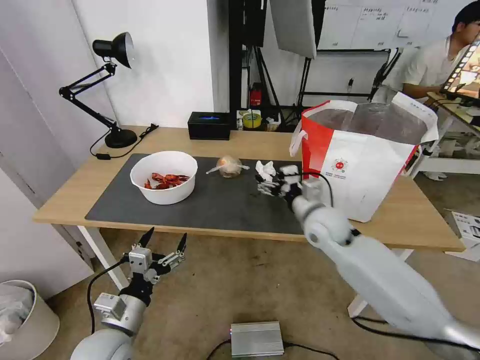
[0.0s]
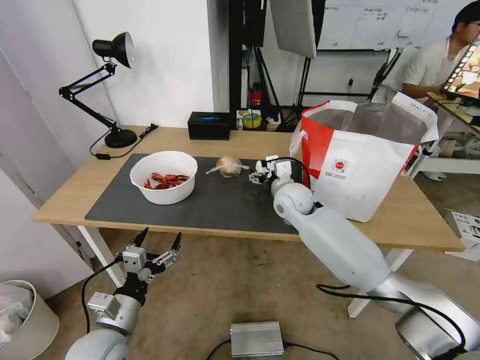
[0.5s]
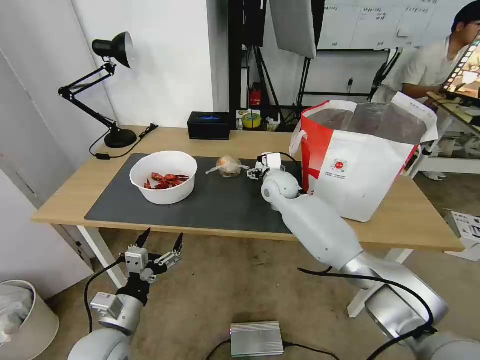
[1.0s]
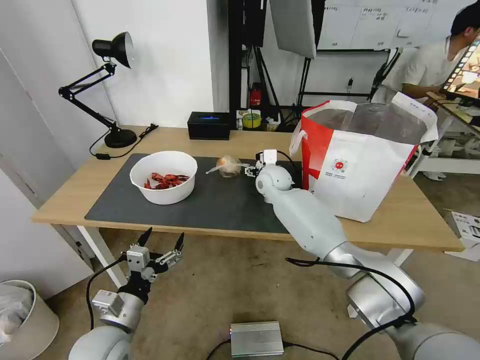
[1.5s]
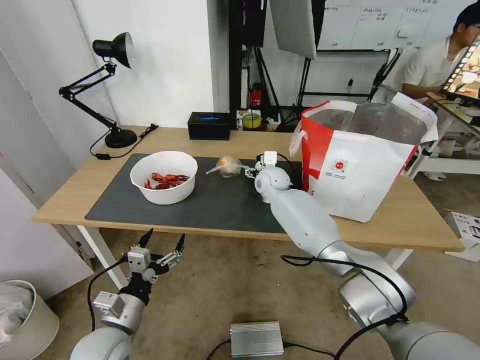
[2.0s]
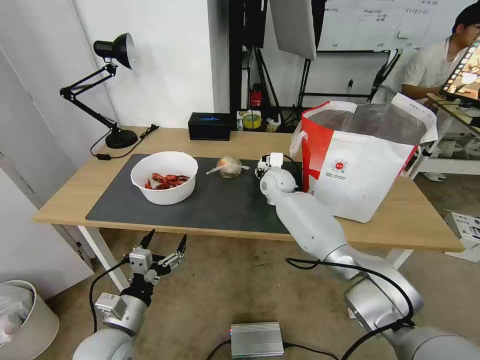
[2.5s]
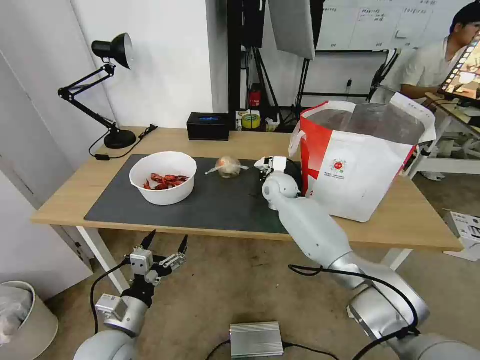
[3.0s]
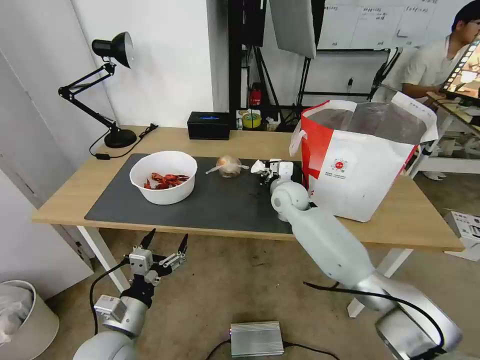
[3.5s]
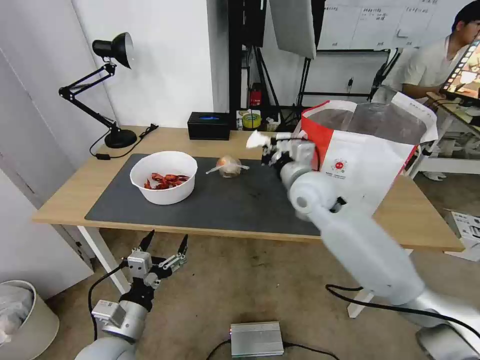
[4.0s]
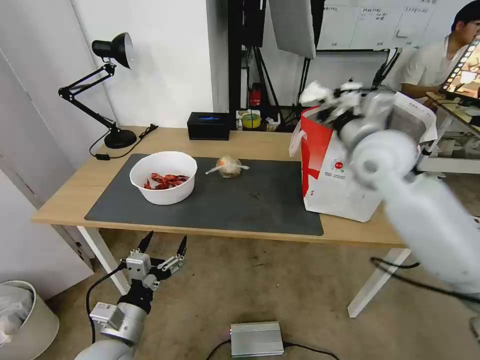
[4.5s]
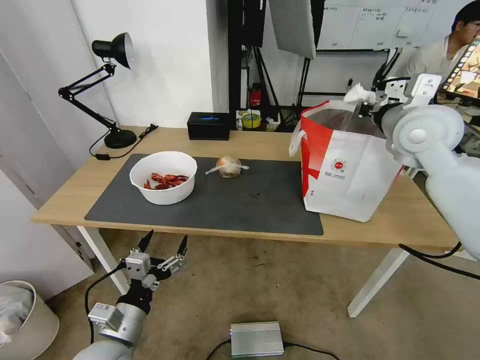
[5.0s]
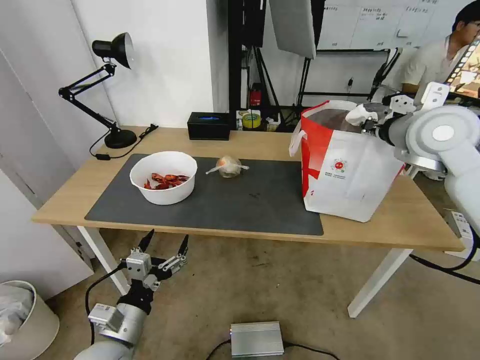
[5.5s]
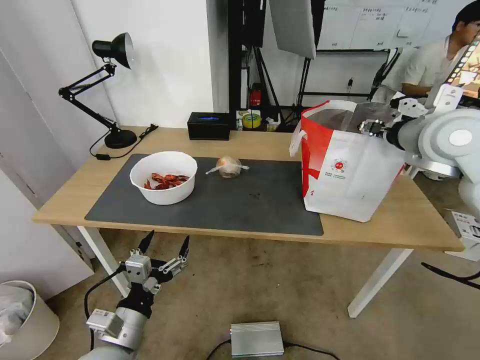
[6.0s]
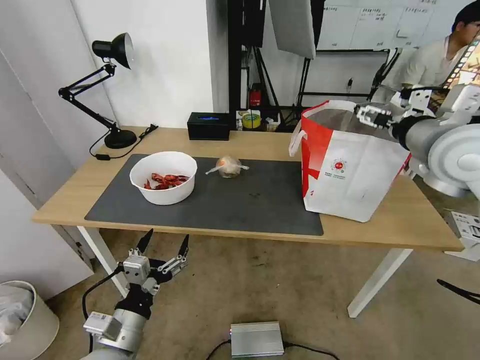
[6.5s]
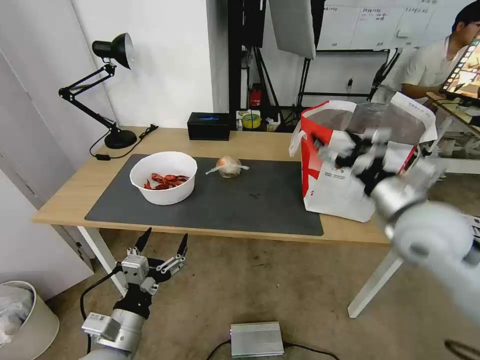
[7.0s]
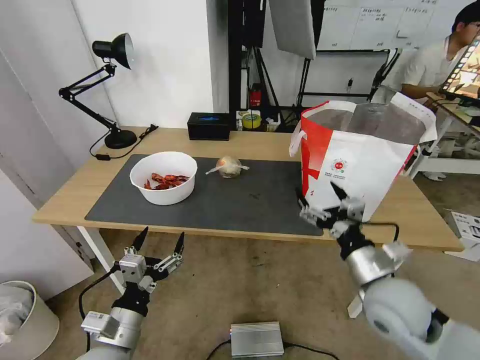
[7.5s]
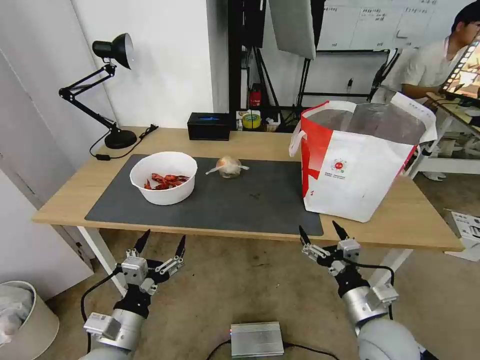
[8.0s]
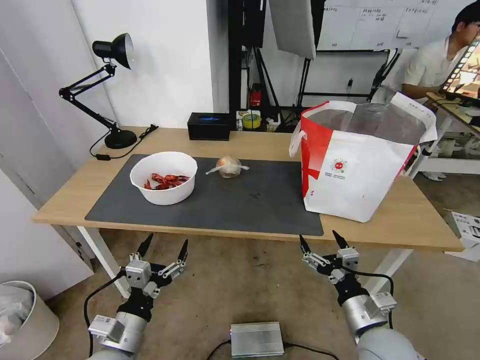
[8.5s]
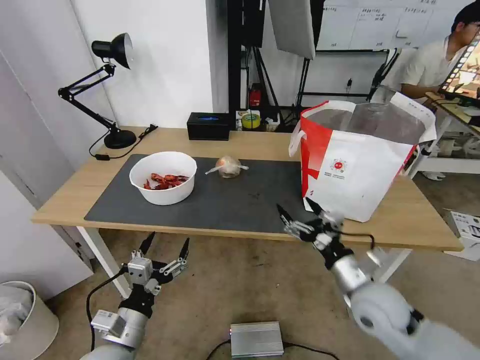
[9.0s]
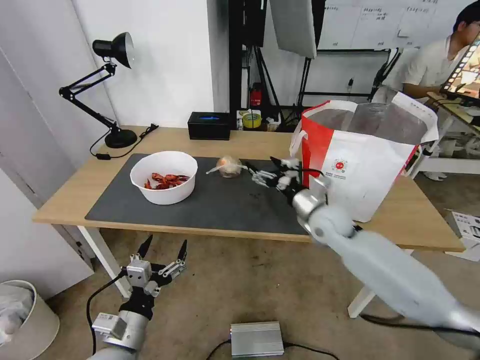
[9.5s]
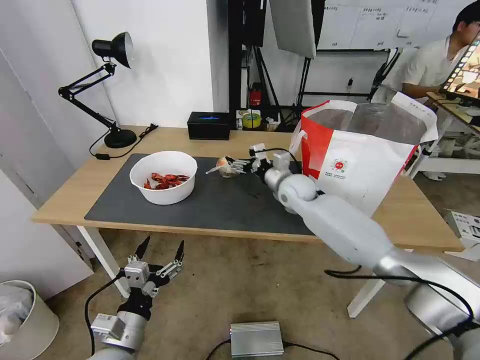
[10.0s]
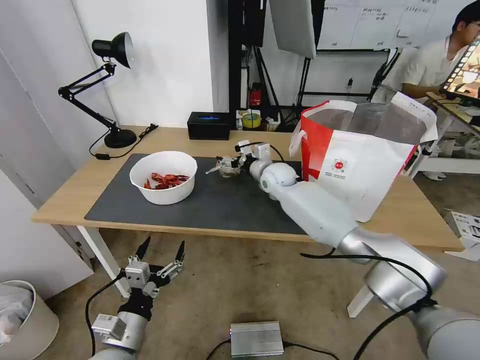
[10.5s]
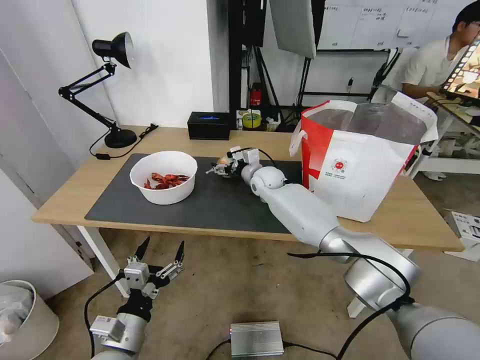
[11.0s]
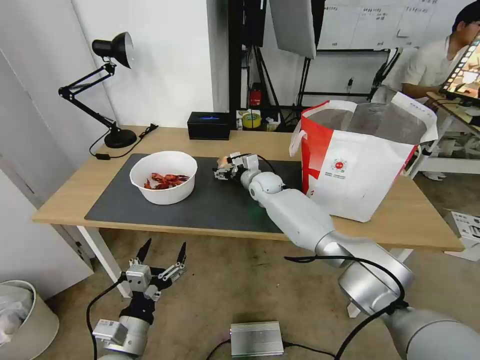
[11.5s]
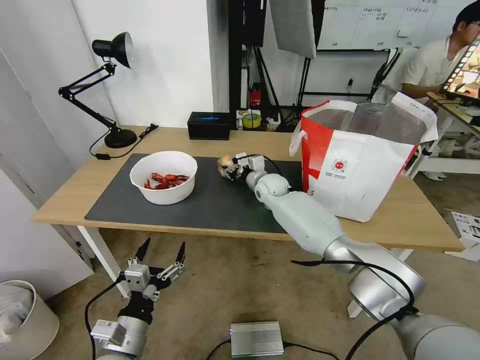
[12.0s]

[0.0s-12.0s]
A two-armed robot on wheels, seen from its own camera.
Task of the whole recording: Pick up the trash from the table and place it into the takeout bag.
0.0s to 2.0s: The right gripper is displaced forward and to the left by about 20 cm.
2.0s to 4.0s: The right gripper heads backward and upward, covering approximately 15 cm, and closes.
4.0s to 6.0s: The right gripper goes roughly 25 cm to the right and upward, and opens its fingers.
6.0s to 8.0s: The right gripper moves downward and backward, some 40 cm, and opens up.
8.0s to 10.0s: The right gripper travels forward by about 35 cm.
10.0s to 12.0s: The right gripper heads forward and to the left, covering roughly 10 cm, and closes its fingers.

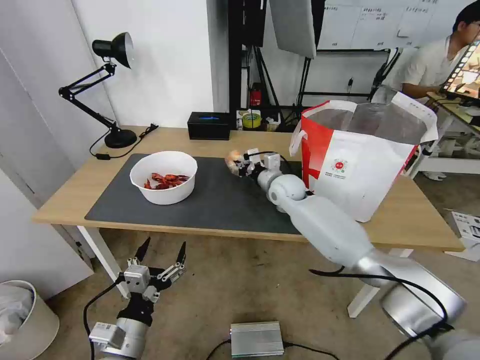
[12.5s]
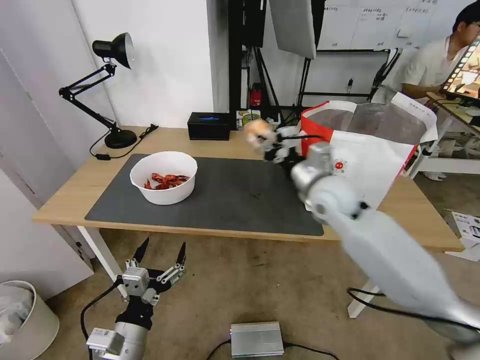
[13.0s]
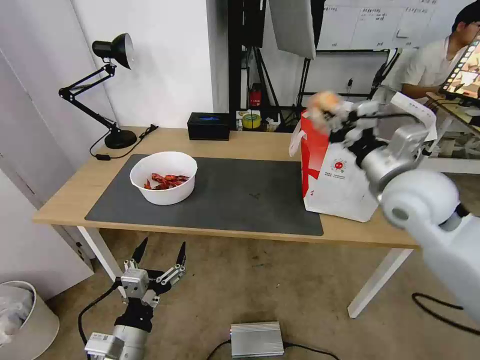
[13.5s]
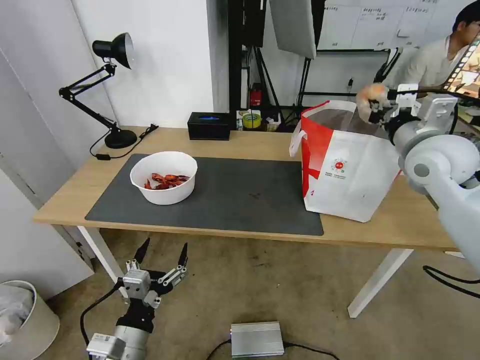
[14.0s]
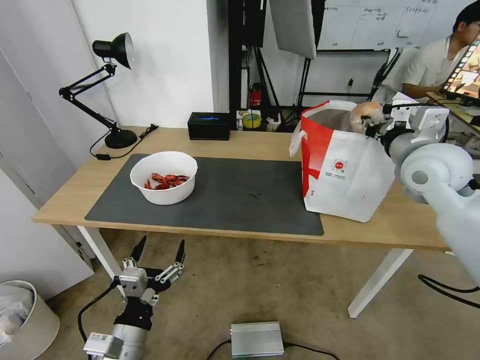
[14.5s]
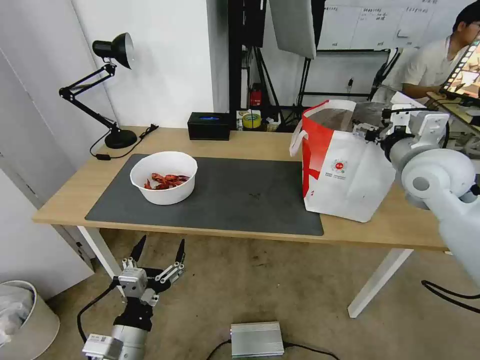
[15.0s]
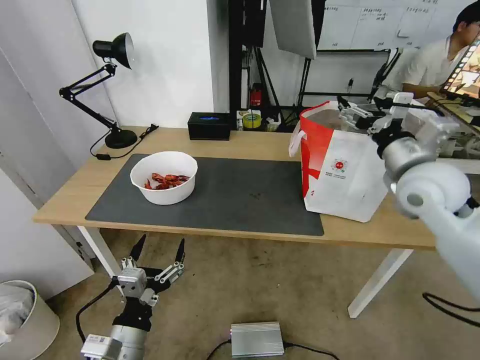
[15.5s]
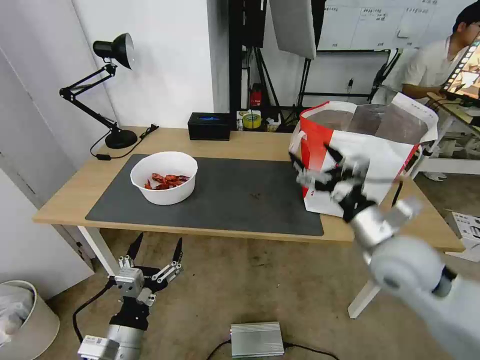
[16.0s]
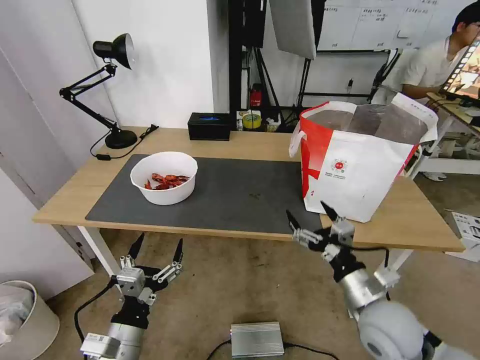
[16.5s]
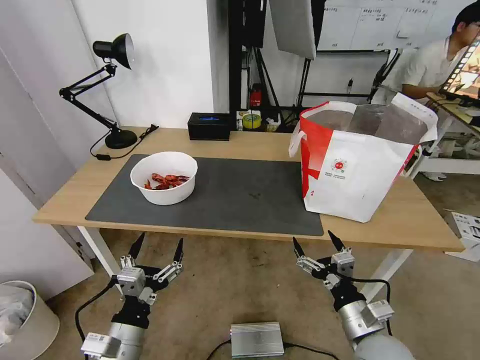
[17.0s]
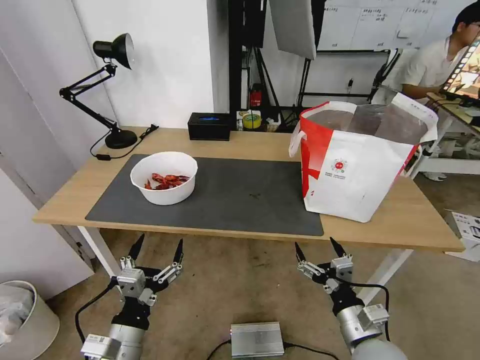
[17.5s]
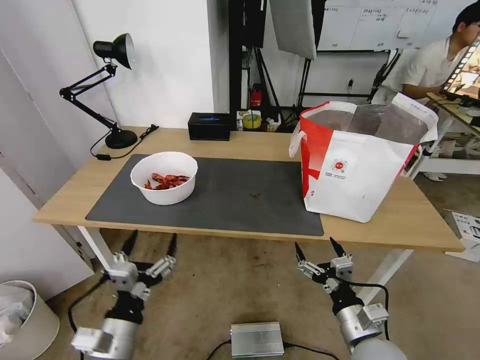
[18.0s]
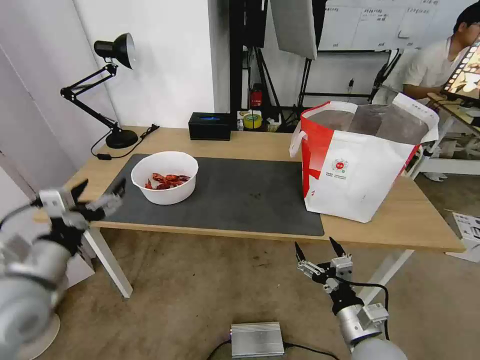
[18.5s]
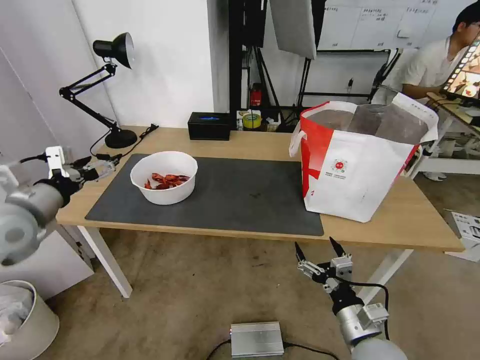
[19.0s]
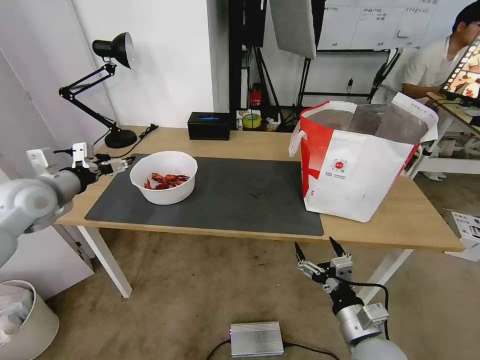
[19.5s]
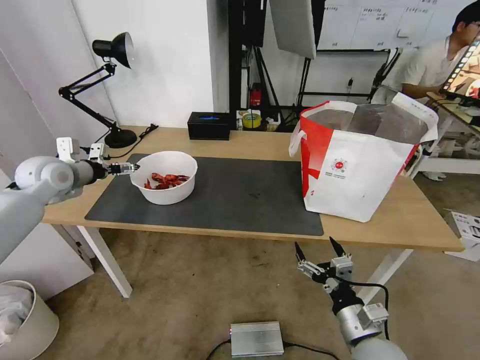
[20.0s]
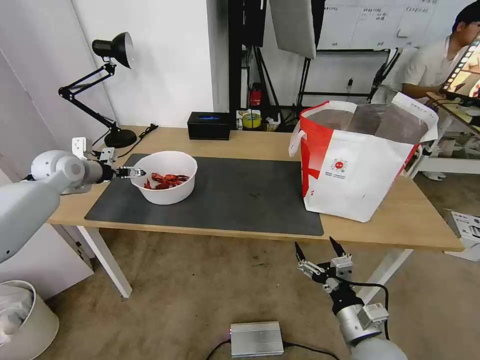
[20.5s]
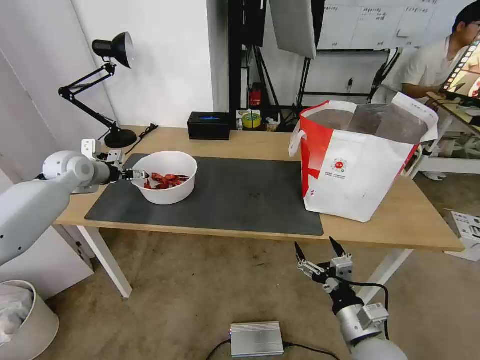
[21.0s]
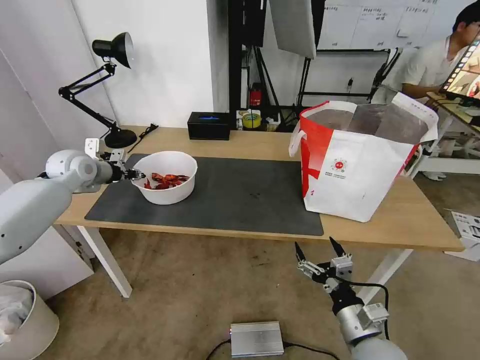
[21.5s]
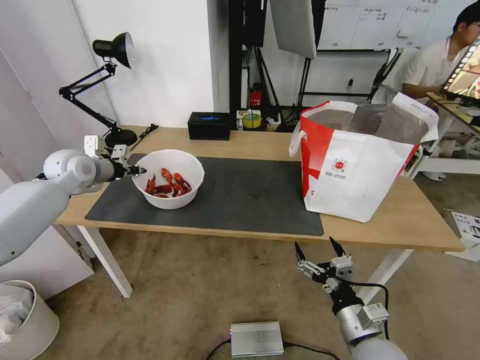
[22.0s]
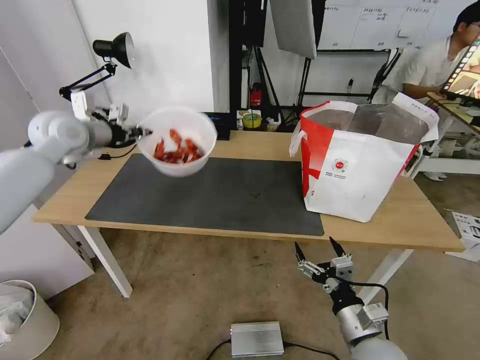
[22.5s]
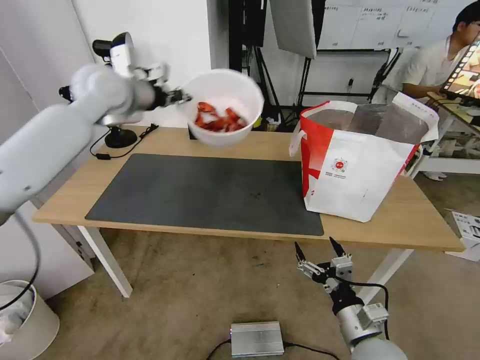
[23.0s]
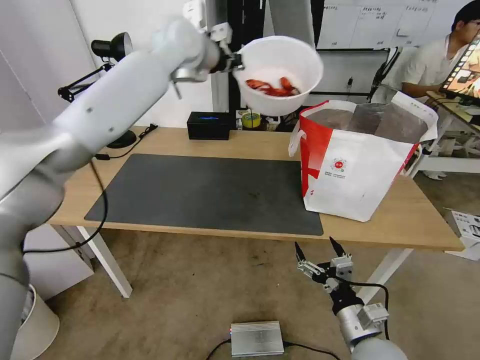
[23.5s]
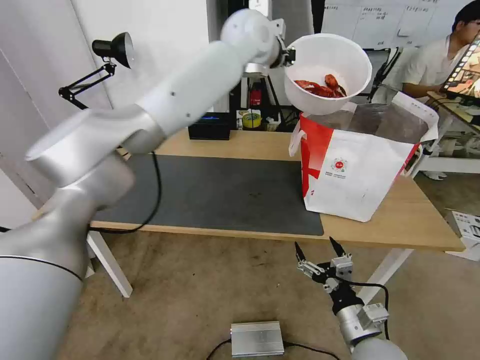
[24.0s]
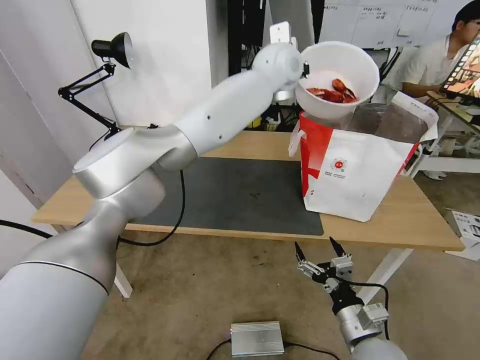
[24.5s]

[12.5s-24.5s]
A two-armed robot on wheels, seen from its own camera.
Task of the whole recording: Pick up the trash from the table and place it into the takeout bag.
12.5s to 14.5s: The right gripper moves to the right, upward and backward, roughly 30 cm.
14.5s to 16.5s: The right gripper travels downward and backward by about 30 cm, and opens its fingers.
16.5s to 18.5s: The left gripper is displaced upward, to the left and forward by about 20 cm. The right gripper shifts roughly 5 cm downward.
18.5s to 20.5s: The left gripper is displaced forward by about 30 cm.
20.5s to 22.5s: The left gripper shifts roughly 10 cm upward and to the right, and closes up.
22.5s to 24.5s: The left gripper shifts approximately 40 cm to the right.

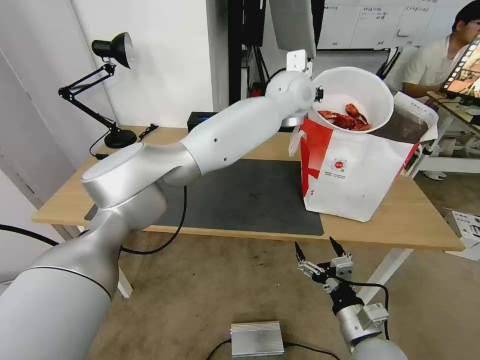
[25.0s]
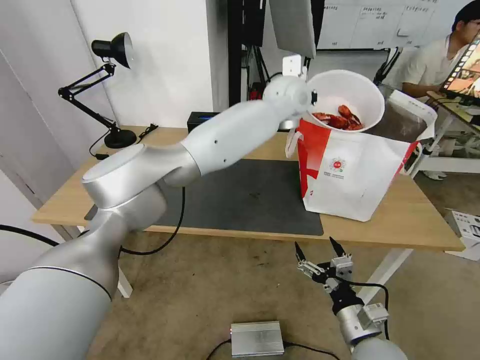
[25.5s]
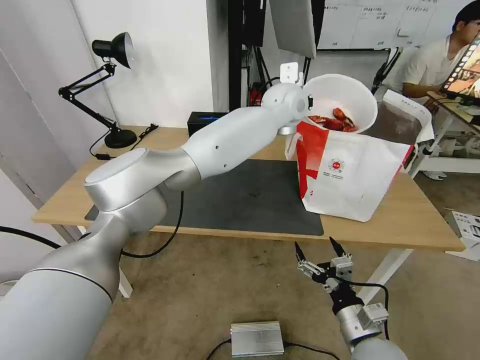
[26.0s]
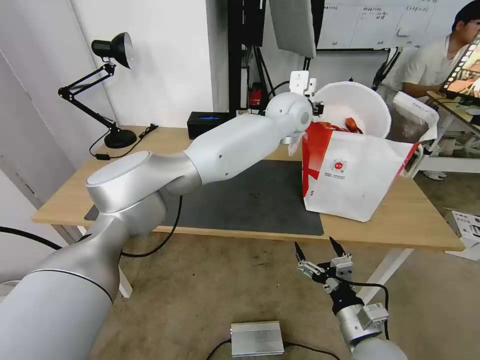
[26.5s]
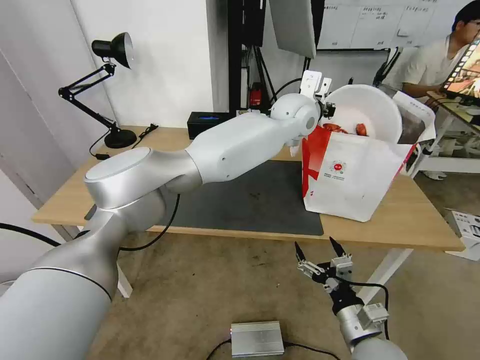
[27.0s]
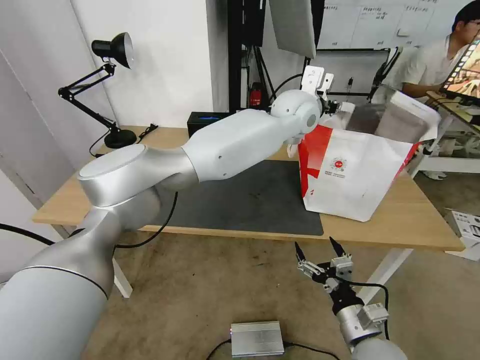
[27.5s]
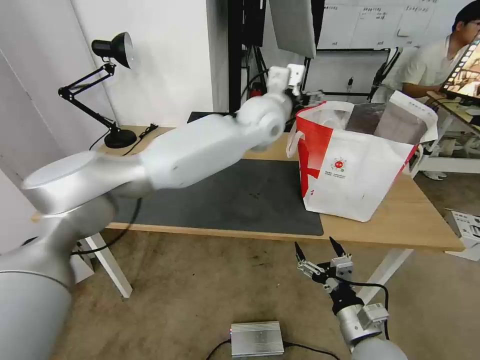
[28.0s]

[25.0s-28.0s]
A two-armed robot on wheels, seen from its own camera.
Task of the whole recording: Pick up the trash from the table and place it into the takeout bag.
25.0s to 26.5s: The grippers make only small movements.
26.5s to 28.0s: The left gripper shifts about 5 cm to the left, and opens up.
